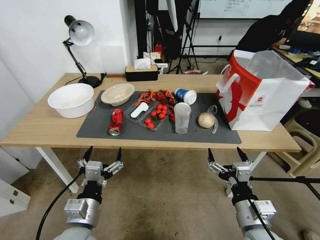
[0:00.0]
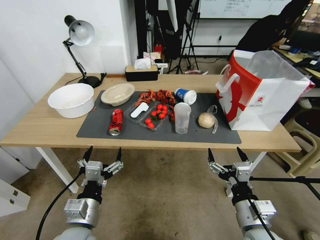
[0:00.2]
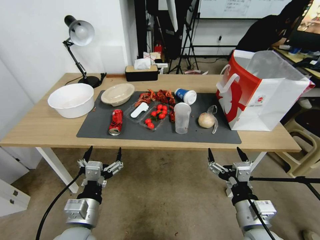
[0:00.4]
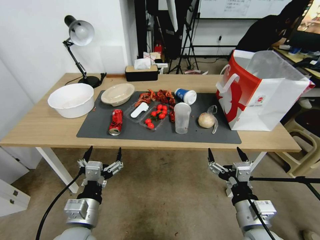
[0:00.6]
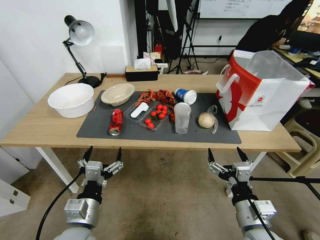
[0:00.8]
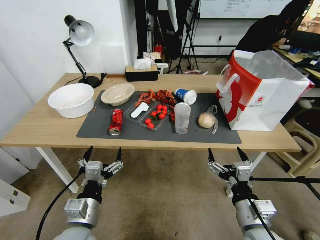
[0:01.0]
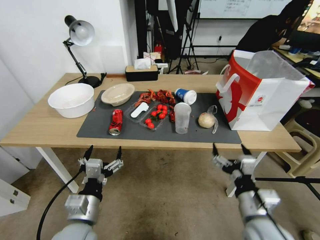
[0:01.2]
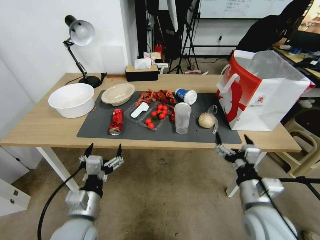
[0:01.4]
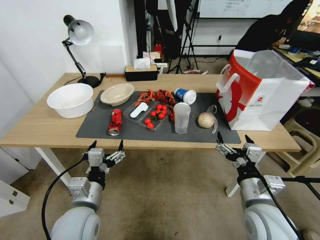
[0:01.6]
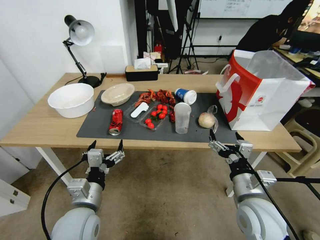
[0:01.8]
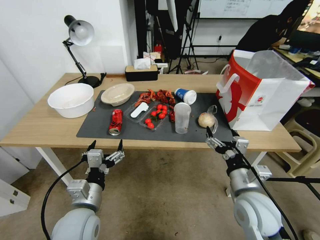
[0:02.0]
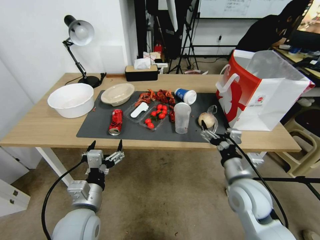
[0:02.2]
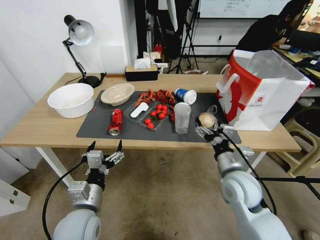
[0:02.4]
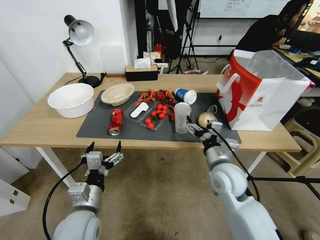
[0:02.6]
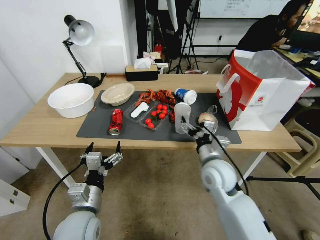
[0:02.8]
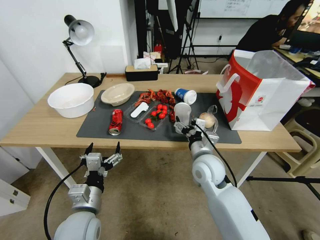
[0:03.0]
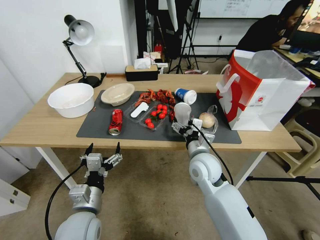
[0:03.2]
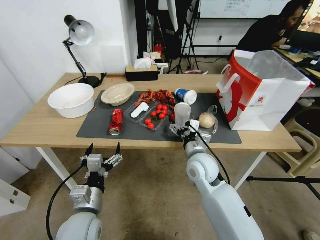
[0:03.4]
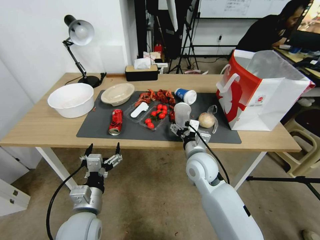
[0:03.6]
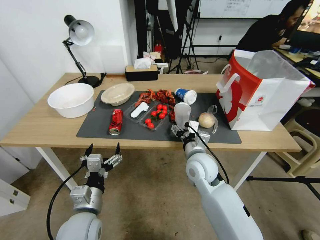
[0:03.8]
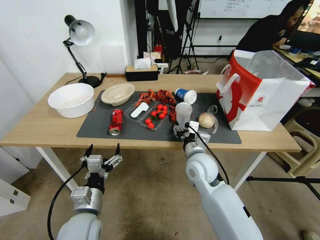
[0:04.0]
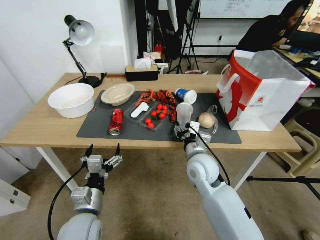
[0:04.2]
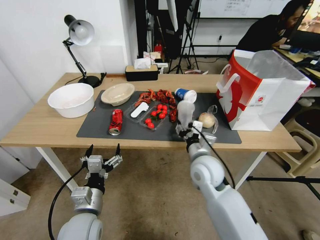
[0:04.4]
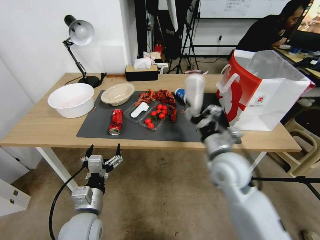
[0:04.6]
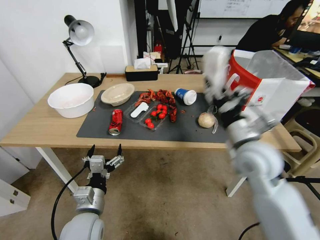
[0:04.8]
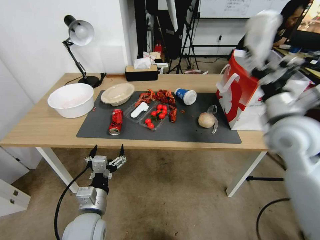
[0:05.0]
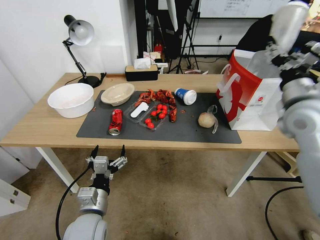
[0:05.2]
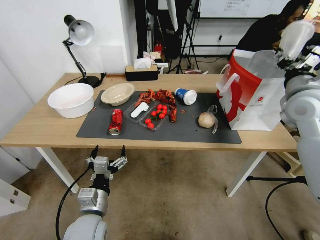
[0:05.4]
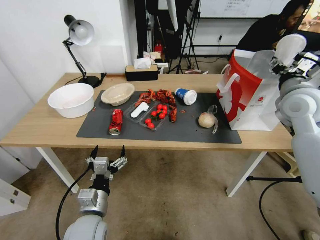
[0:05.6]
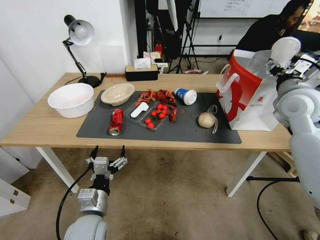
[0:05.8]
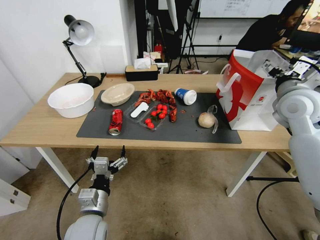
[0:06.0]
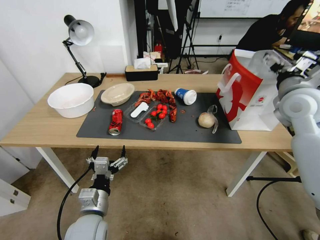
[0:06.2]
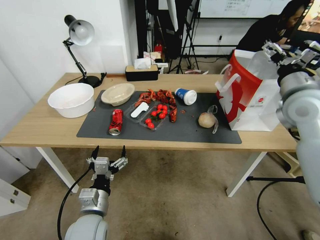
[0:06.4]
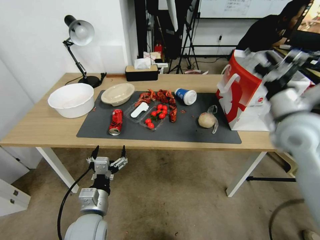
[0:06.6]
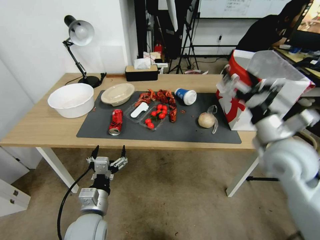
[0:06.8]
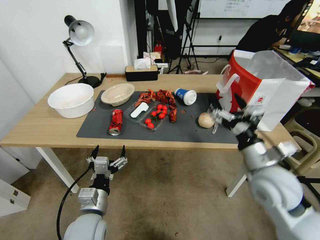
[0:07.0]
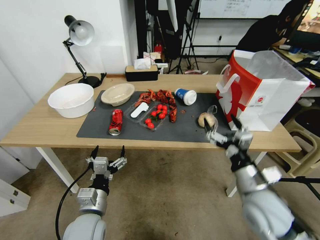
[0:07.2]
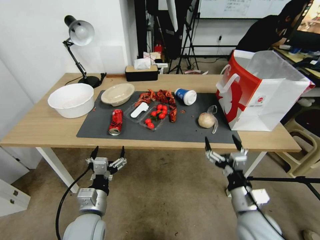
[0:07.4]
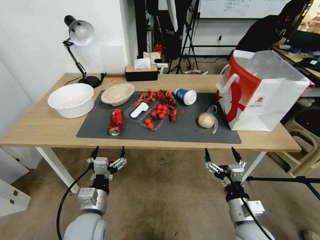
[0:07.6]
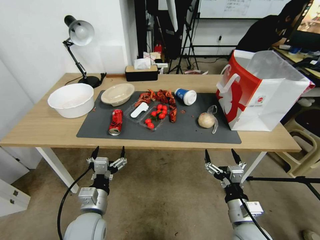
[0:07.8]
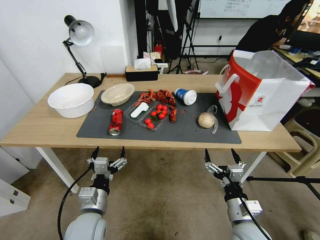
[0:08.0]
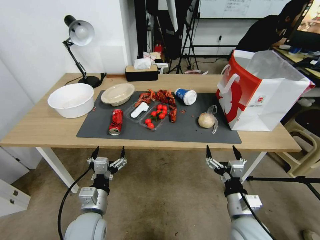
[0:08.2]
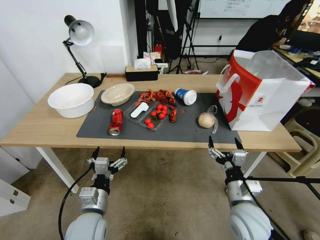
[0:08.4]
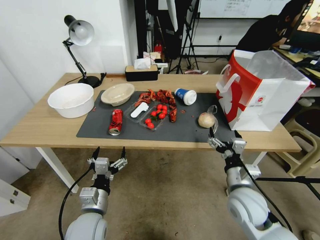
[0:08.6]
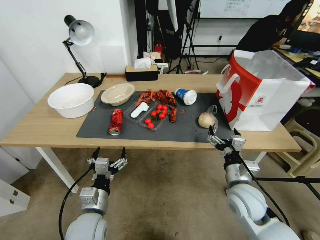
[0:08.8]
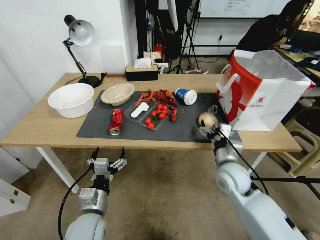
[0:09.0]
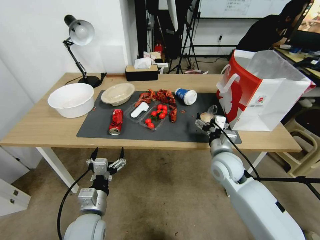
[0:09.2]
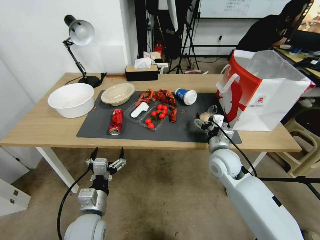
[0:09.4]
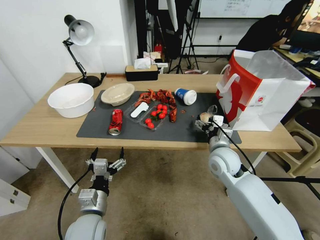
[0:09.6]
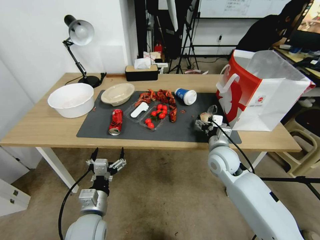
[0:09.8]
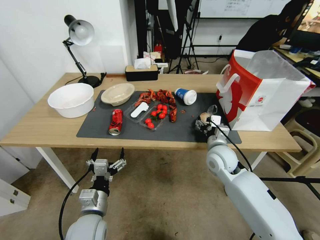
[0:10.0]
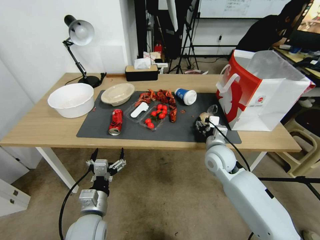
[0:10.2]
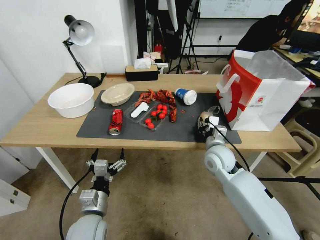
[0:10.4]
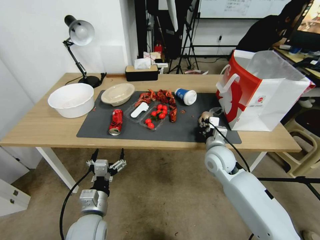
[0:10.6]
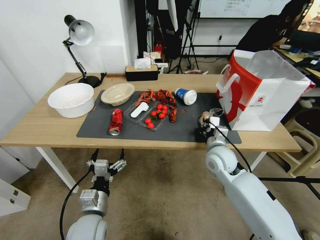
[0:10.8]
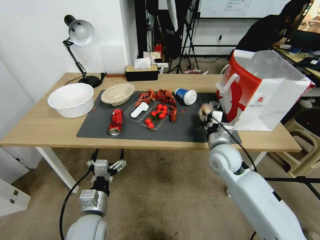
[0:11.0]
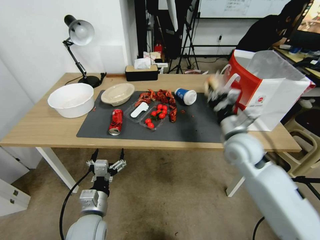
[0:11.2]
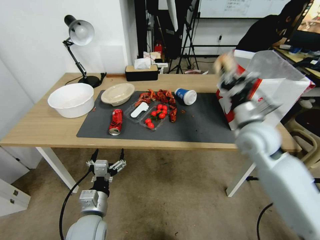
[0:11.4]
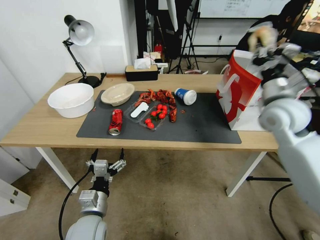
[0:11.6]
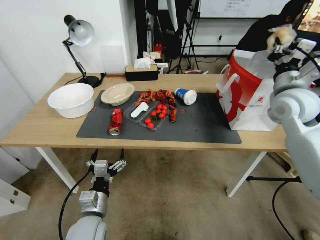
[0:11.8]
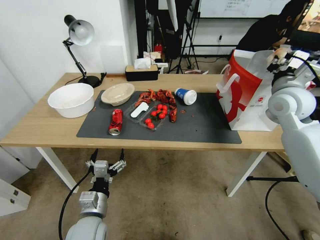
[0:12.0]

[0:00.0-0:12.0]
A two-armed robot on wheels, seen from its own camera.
0:01.6 to 0:03.0: The right gripper moves forward and to the left, roughly 20 cm.
0:03.0 to 0:04.4: The right gripper closes its fingers.
0:04.4 to 0:06.0: The right gripper travels to the right and upward by some 30 cm, and opens up.
0:06.0 to 0:07.6: The right gripper travels downward, backward and to the left by about 40 cm.
0:07.6 to 0:09.0: The right gripper is displaced forward by some 5 cm.
0:09.0 to 0:10.4: The right gripper moves forward, roughly 15 cm, and closes up.
0:10.4 to 0:12.0: The right gripper is displaced upward and to the right by approximately 25 cm, and closes.

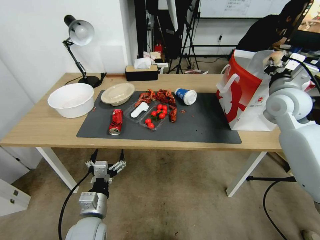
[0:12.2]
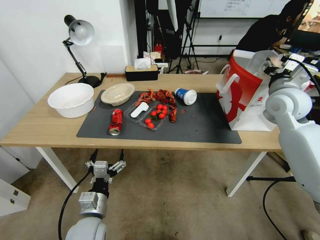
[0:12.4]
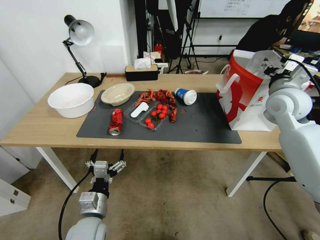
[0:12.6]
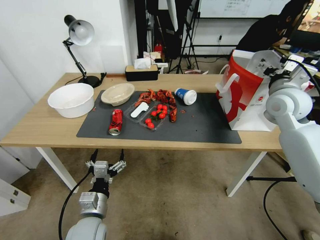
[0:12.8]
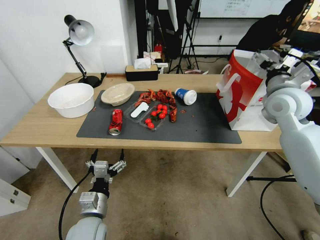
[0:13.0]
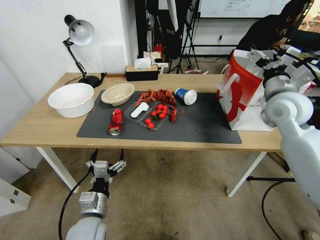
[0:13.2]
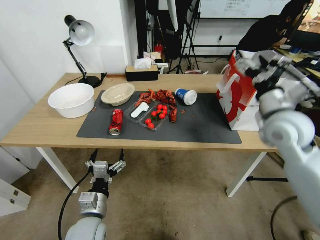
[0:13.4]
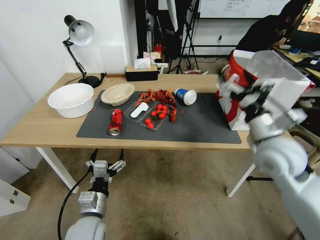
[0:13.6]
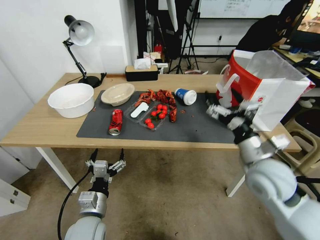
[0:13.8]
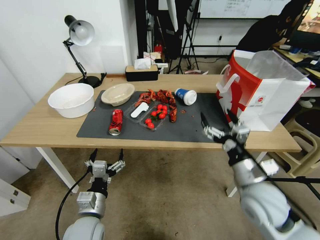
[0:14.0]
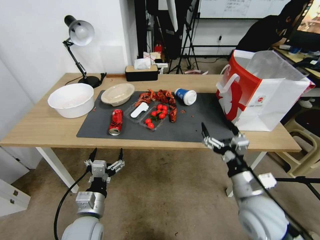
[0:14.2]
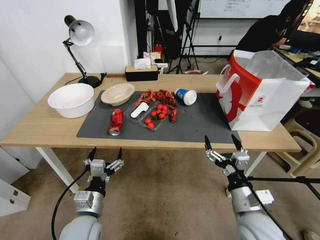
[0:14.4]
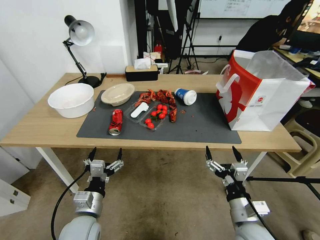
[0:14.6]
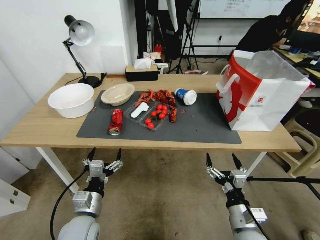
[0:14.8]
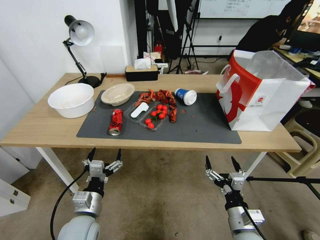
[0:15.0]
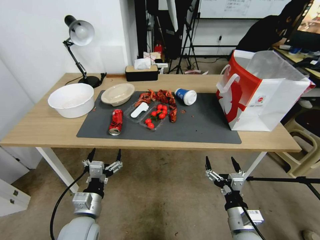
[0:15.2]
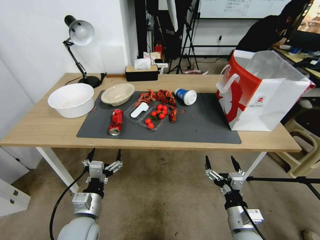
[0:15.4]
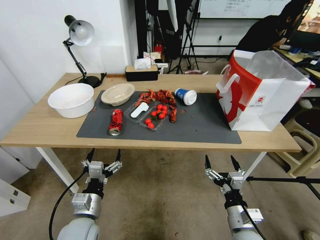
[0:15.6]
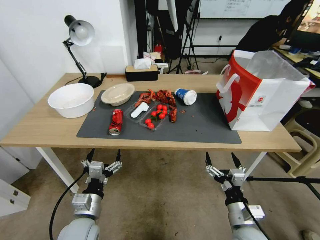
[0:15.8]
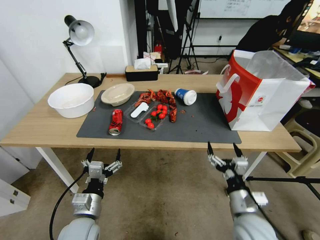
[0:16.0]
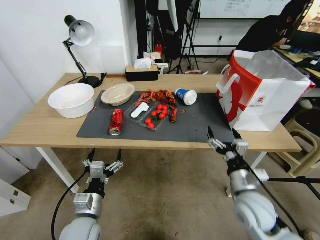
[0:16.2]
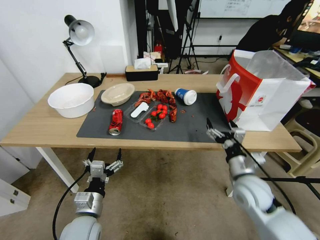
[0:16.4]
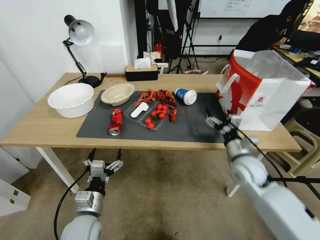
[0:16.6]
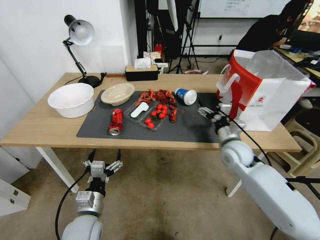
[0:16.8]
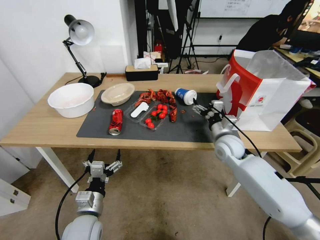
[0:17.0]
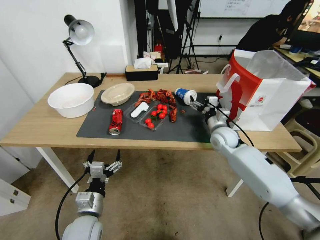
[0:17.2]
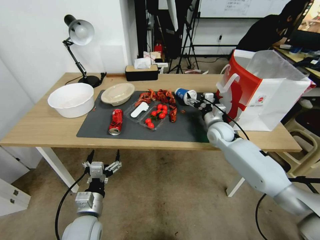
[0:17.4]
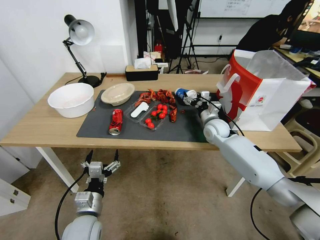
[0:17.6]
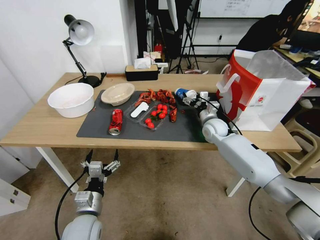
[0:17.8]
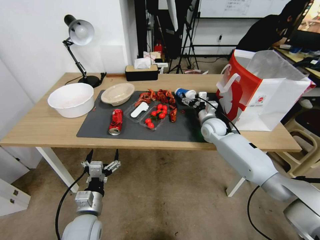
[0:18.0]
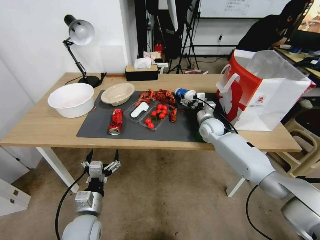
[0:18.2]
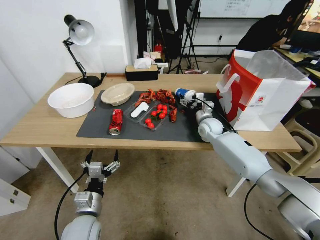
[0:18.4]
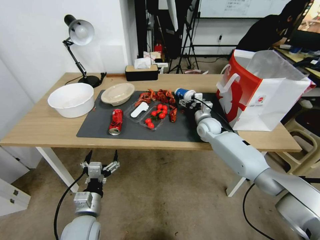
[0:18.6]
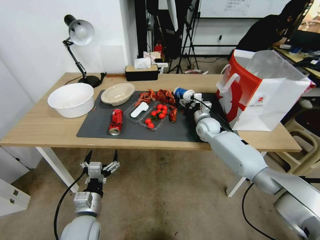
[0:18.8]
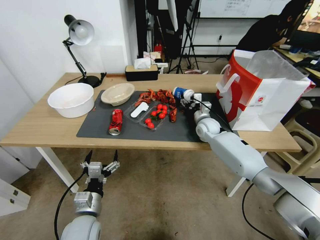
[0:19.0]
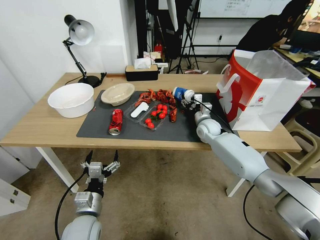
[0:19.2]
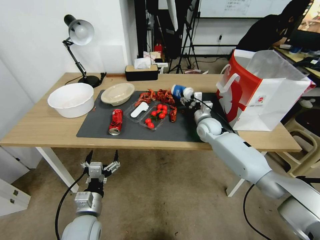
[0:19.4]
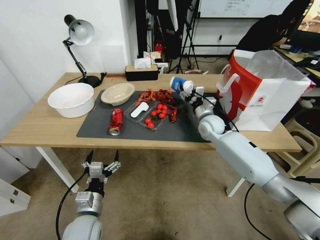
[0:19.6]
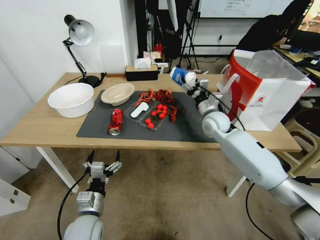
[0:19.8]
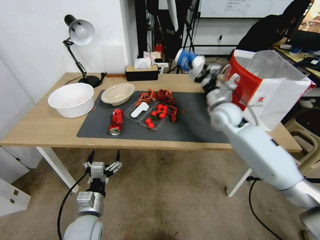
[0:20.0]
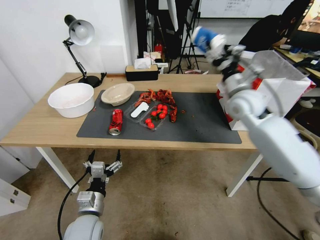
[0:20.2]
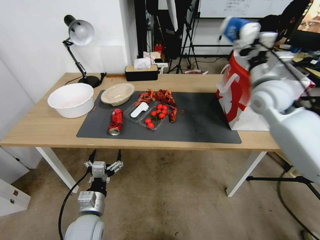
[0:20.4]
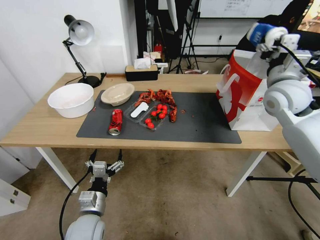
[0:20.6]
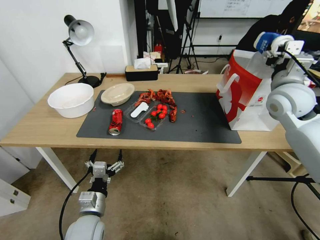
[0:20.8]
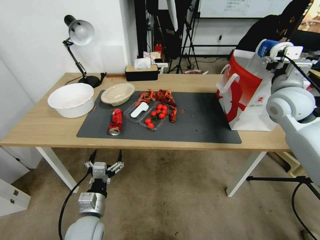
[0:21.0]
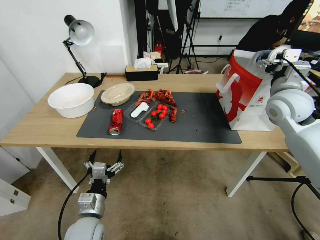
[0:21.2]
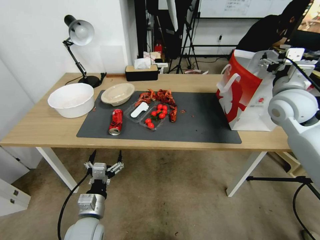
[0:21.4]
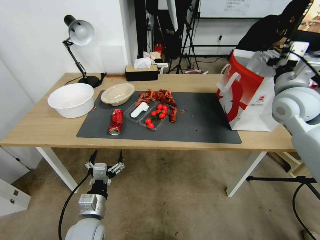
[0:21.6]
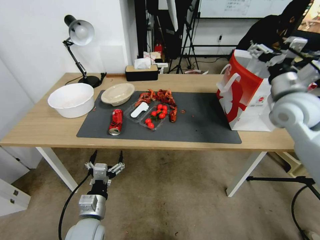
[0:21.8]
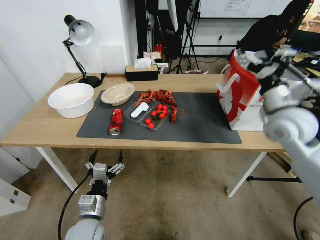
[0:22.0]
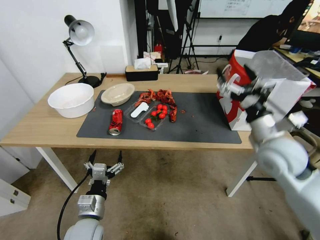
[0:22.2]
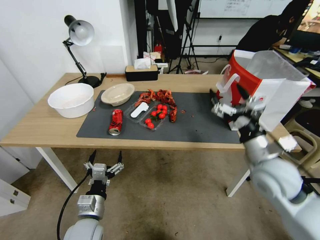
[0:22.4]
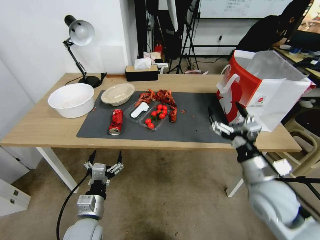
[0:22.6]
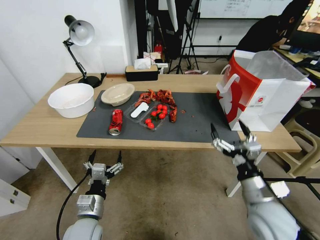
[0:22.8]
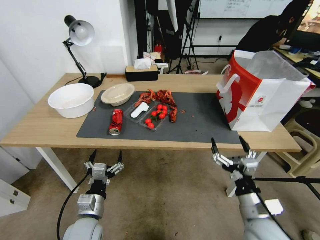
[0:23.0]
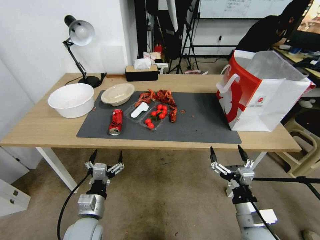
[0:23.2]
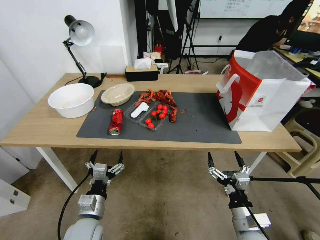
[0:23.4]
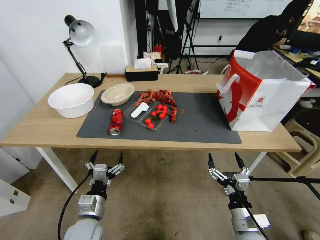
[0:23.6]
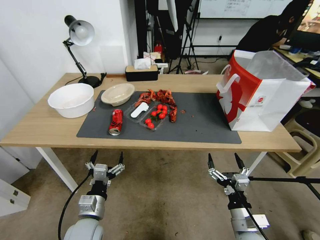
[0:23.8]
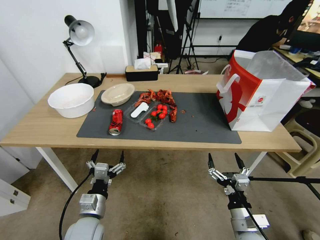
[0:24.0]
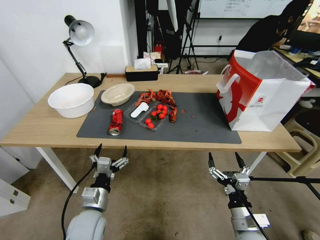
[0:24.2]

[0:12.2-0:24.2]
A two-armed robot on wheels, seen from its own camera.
0:12.2 to 0:13.8: The right gripper shifts approximately 20 cm backward, downward and to the left, and opens up.
0:13.8 to 0:15.2: The right gripper is displaced downward and backward by approximately 20 cm.
0:15.2 to 0:16.6: The right gripper is displaced forward by about 20 cm.
0:16.6 to 0:18.2: The right gripper travels forward by roughly 20 cm.
0:18.2 to 0:19.8: The right gripper moves upward, about 10 cm, and closes up.
0:19.8 to 0:21.2: The right gripper is displaced upward, to the right and backward by roughly 20 cm, and opens its fingers.
0:21.2 to 0:22.6: The right gripper heads backward and downward, covering roughly 25 cm.
0:22.6 to 0:24.2: The right gripper heads downward and backward, covering roughly 20 cm.
